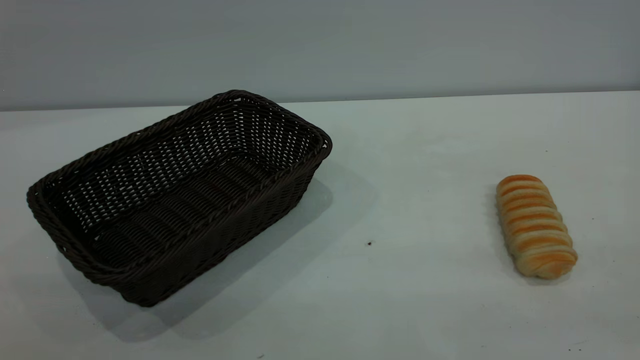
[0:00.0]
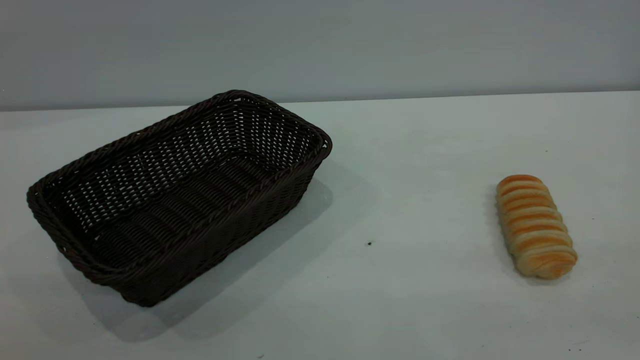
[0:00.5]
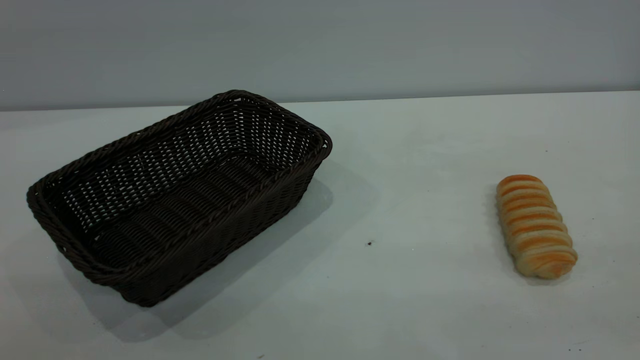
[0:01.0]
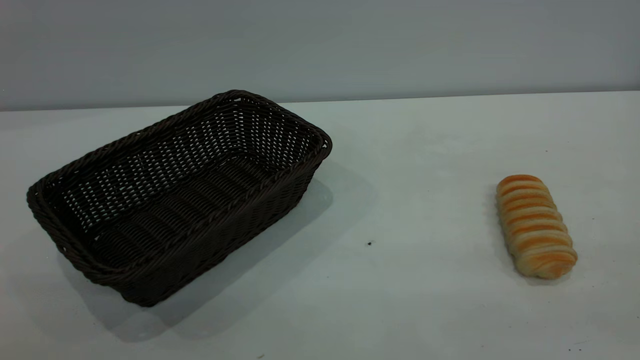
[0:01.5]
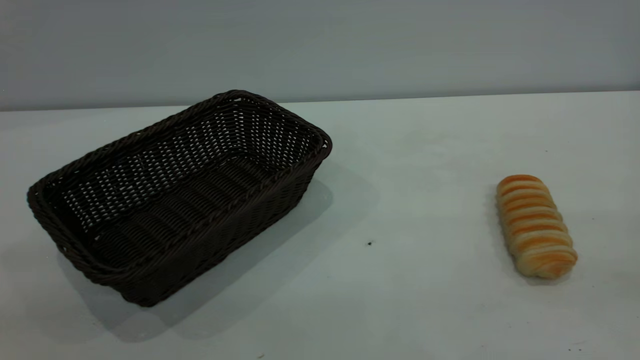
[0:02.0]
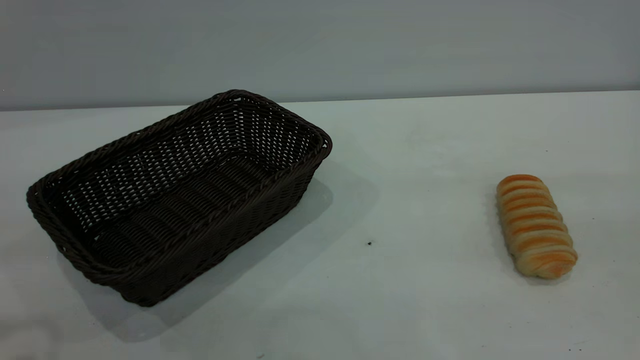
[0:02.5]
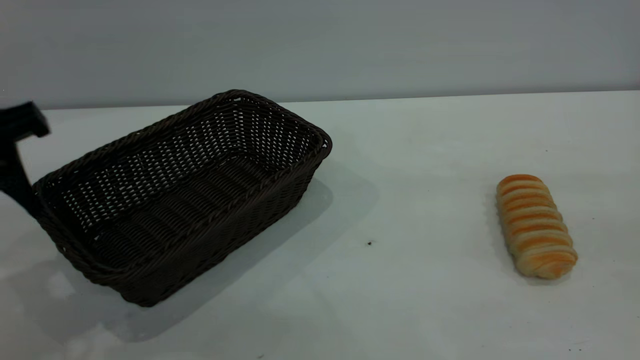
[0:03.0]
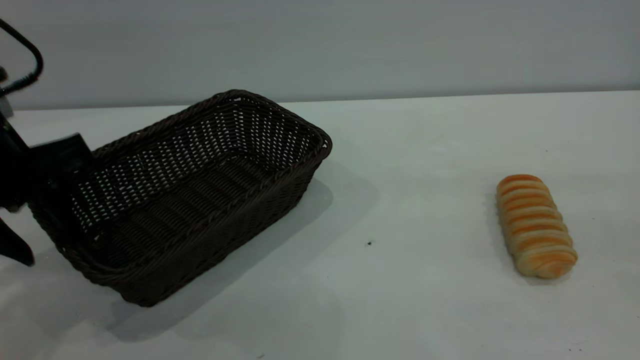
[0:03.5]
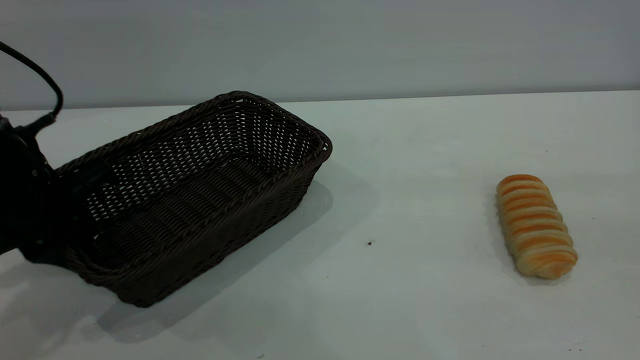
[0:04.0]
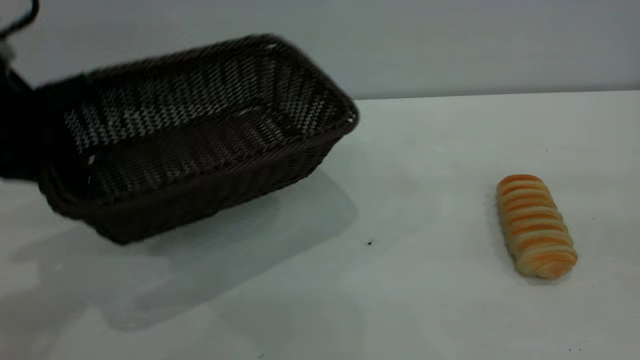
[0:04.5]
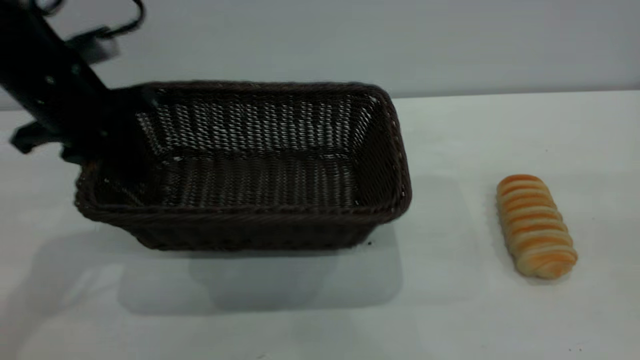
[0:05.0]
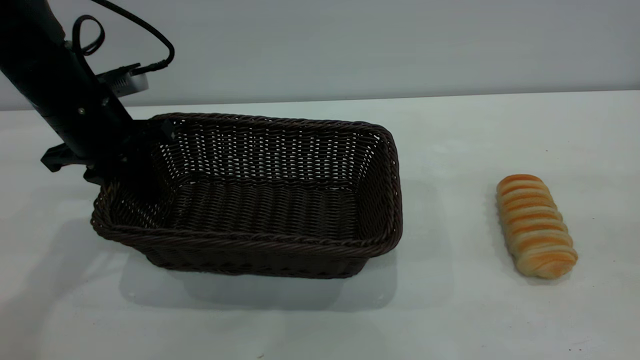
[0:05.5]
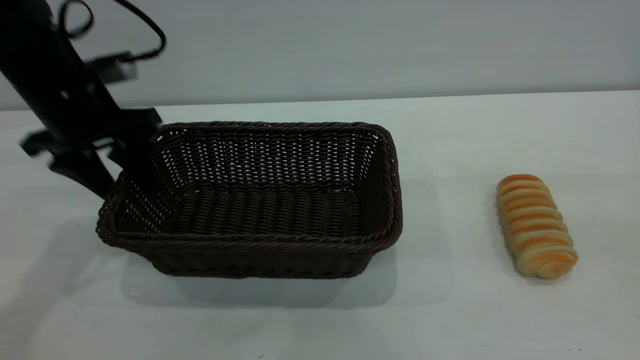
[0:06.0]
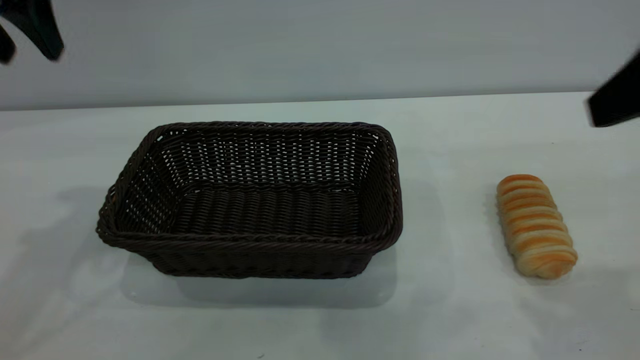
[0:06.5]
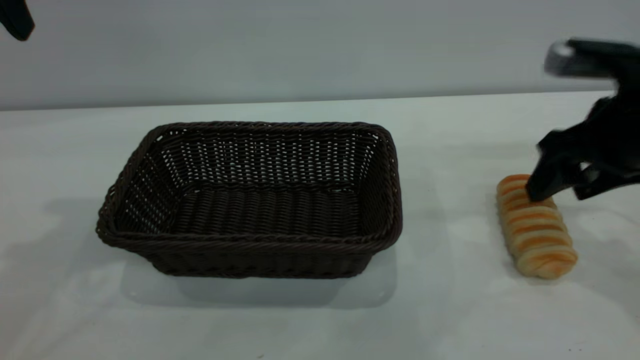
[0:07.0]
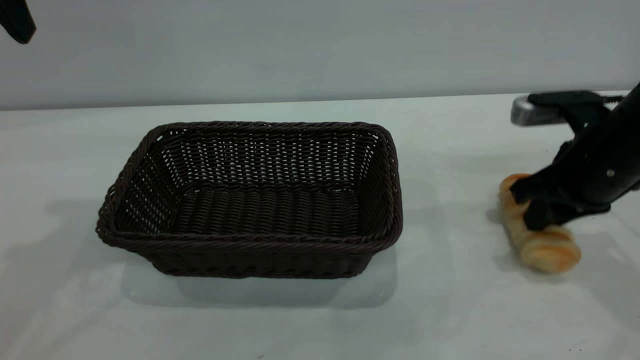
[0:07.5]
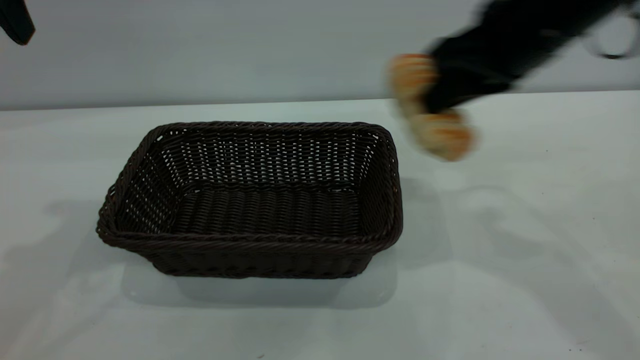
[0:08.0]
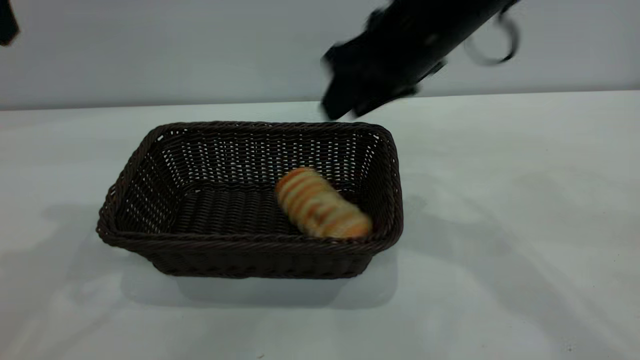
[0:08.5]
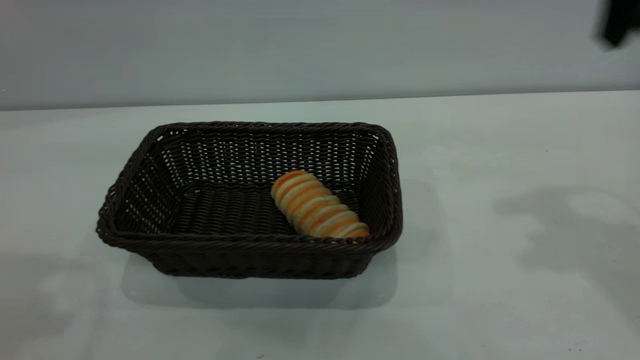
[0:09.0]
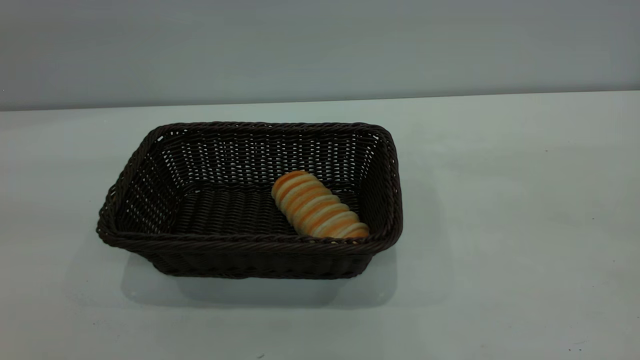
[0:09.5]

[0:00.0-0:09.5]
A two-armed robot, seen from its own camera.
Task of the whole recording: One hand grasps the black basket and places it in the middle of the table, while the other hand picks up the long bread and puts it into the black basket.
Step, 0:00.0 to 0:06.0: Move the basket to the center of view.
Step, 0:08.0 to 0:08.5: place the bread into the basket.
0:02.0 to 0:04.0: The left gripper shifts approximately 35 cm forward and downward, and closes up.
0:04.0 to 0:05.5: The left gripper heads forward, covering about 10 cm.
0:05.5 to 0:07.5: The right gripper moves forward and downward, about 30 cm, and closes its fingers; the left gripper goes about 20 cm upward, and opens.
0:07.5 to 0:09.5: The right gripper travels upward and backward by roughly 35 cm, and opens up; the left gripper shifts roughly 20 cm backward.
